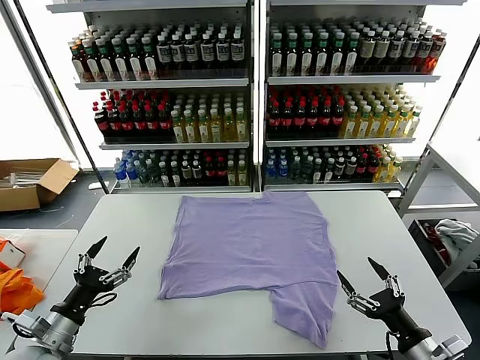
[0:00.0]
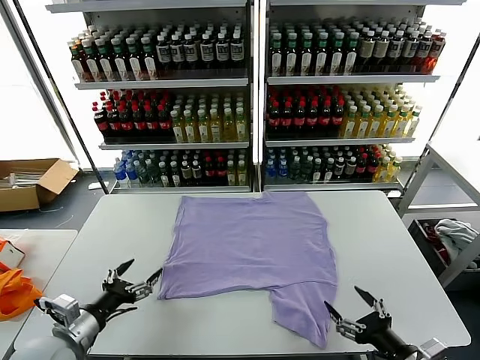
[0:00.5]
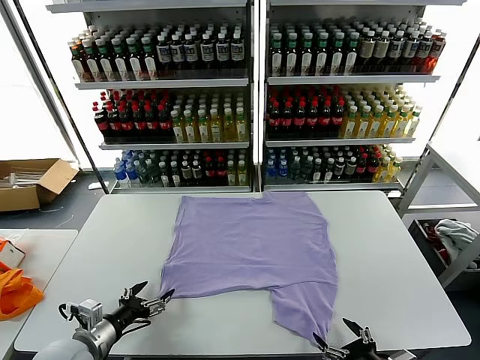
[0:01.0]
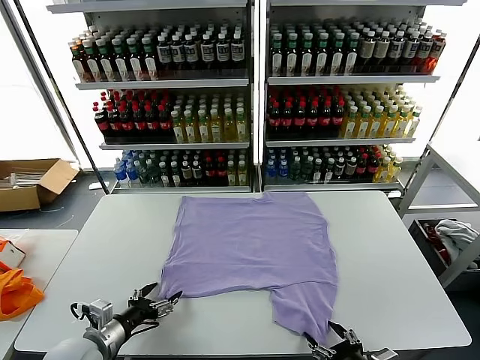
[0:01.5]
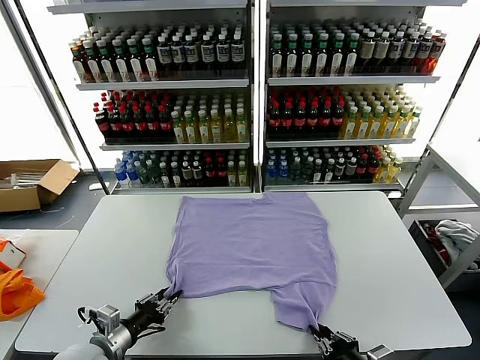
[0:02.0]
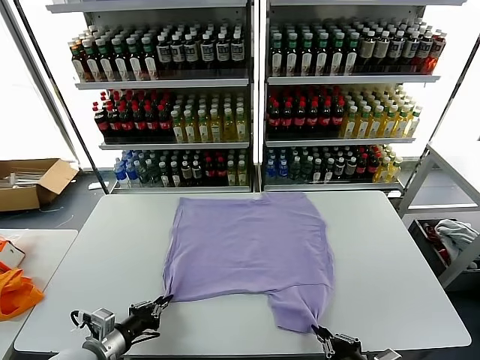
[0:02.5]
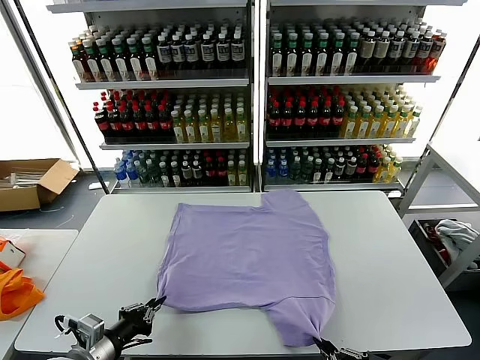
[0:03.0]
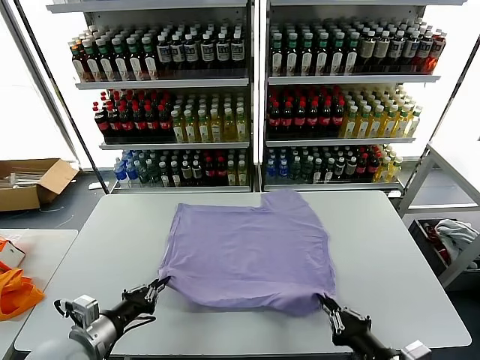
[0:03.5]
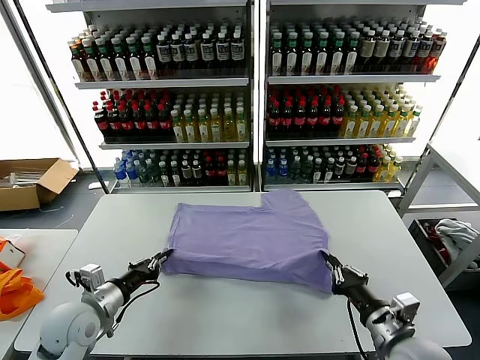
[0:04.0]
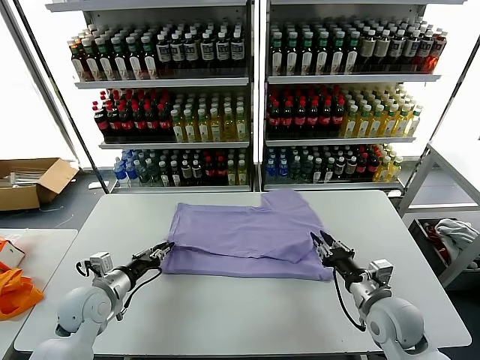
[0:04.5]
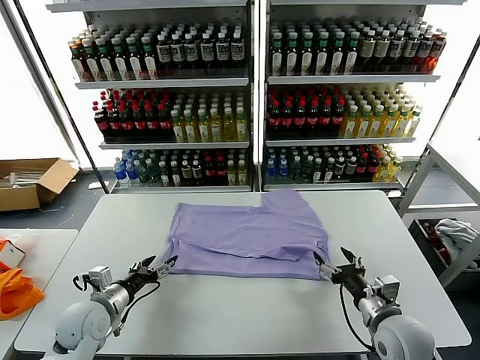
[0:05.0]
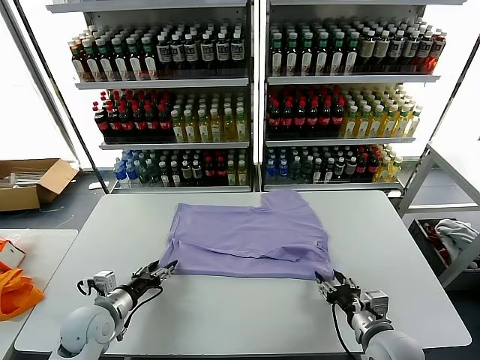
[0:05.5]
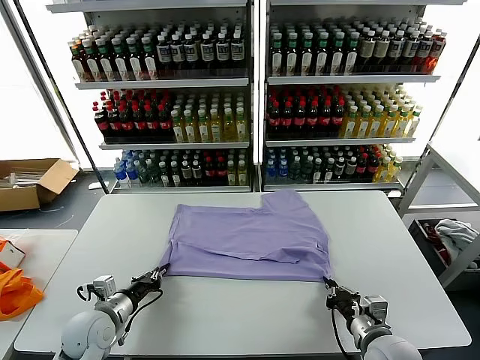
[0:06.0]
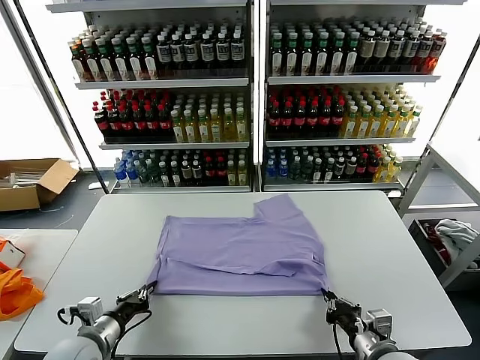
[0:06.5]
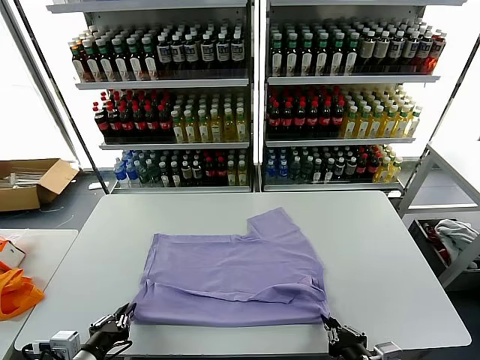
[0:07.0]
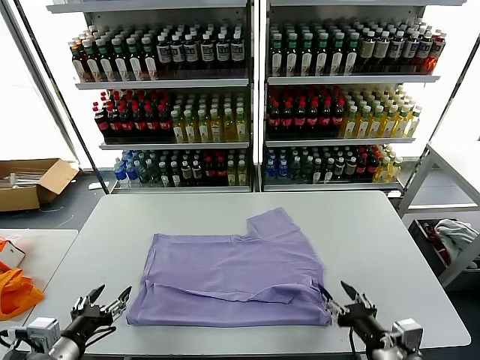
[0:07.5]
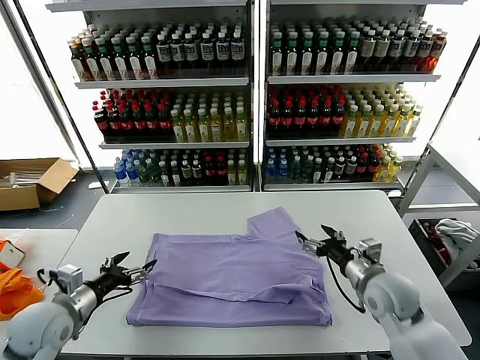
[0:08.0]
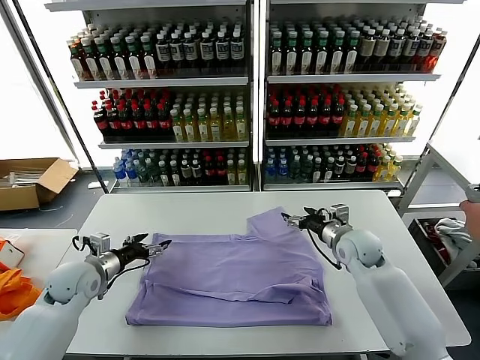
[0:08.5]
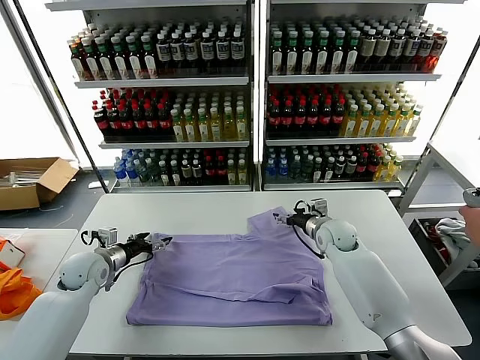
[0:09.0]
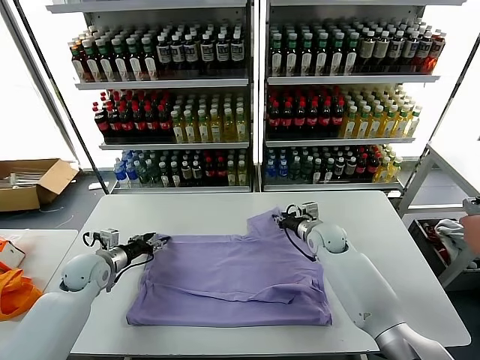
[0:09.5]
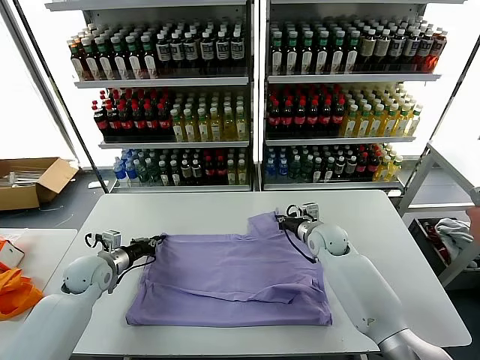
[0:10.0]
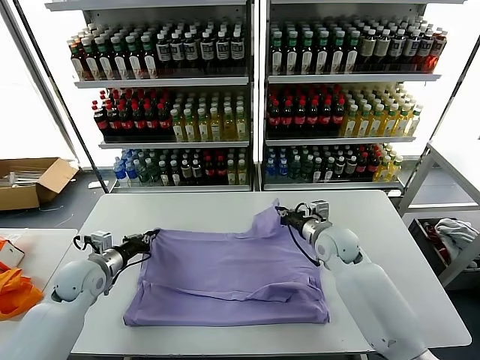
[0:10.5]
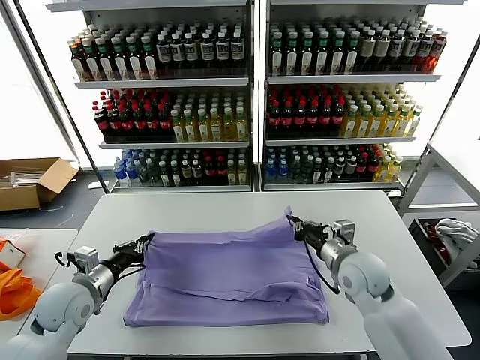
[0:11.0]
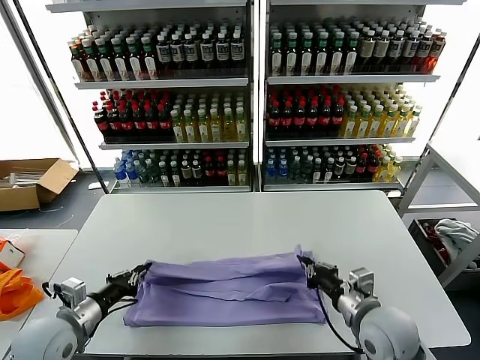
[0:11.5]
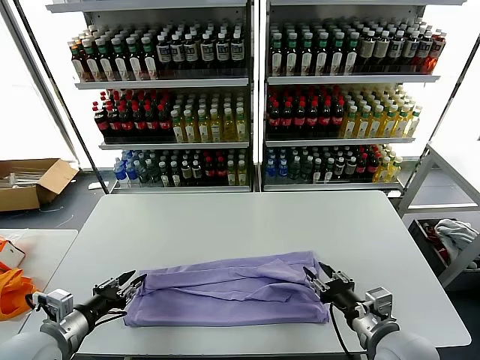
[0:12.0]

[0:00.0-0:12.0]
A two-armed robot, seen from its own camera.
Task of the whole recording: fold and organize the clothes.
Step, 0:00.0 to 0:02.5: use both grippers simultaneously to clamp the lower edge of the clothing fabric.
Step, 0:03.0 to 0:04.5: use both grippers to drag the lower edge of the fabric forward and fold it over the upper edge.
Step, 0:05.0 to 0:07.0: Drag the clothes downward with both gripper.
Step, 0:07.5 to 0:10.0: use both grippers simultaneously to clamp the upper edge of the clothing fabric.
Step, 0:10.5 to 0:12.0: use both grippers to drag the upper edge of the fabric backward and fold it over the lower edge.
0:02.0 to 0:04.0: The right gripper heads forward, covering some 10 cm; the left gripper moves forward and upward, some 10 cm.
0:04.0 to 0:06.0: The left gripper is displaced downward by some 5 cm, and opens and closes again, while the right gripper shifts by about 5 cm, and opens, then closes again.
0:06.0 to 0:08.0: The right gripper is displaced forward by about 15 cm, and opens its fingers. The left gripper is displaced upward by some 10 cm, reaches approximately 15 cm backward, then returns, and opens up.
0:08.0 to 0:10.0: The left gripper is displaced forward and downward by approximately 15 cm, and closes. Meanwhile the right gripper heads forward and to the left, covering roughly 15 cm, and closes up.
0:10.0 to 0:12.0: The two grippers go approximately 25 cm backward. The right gripper opens its fingers.

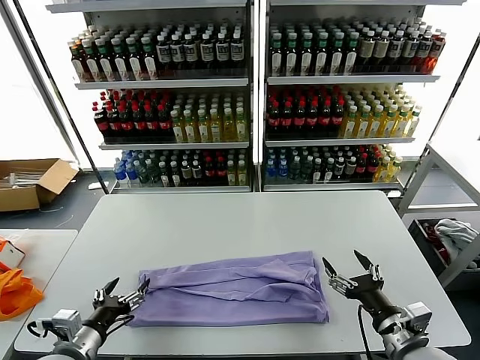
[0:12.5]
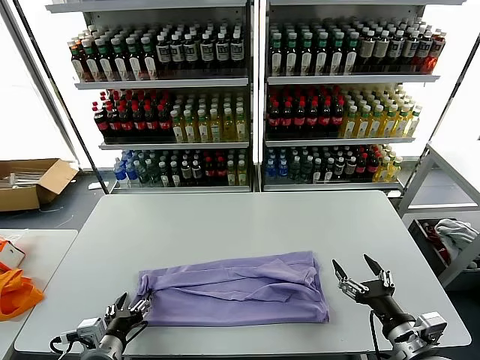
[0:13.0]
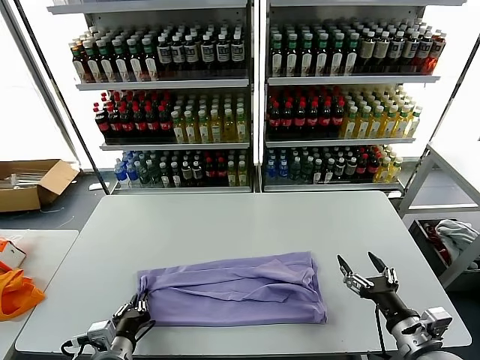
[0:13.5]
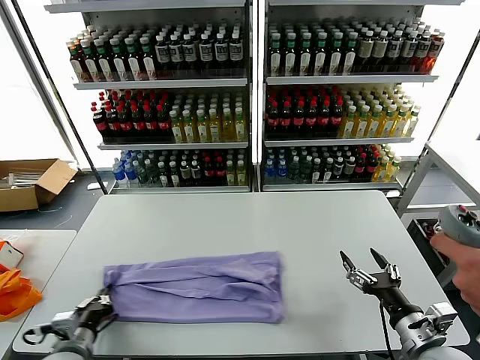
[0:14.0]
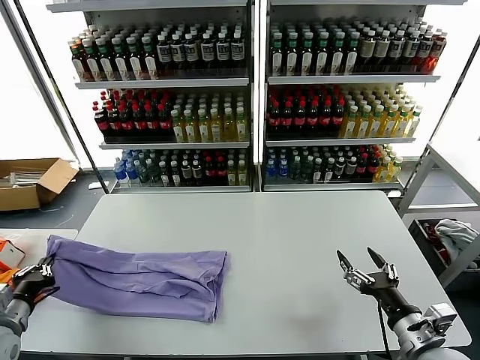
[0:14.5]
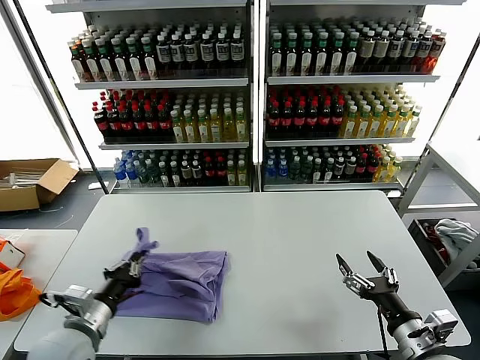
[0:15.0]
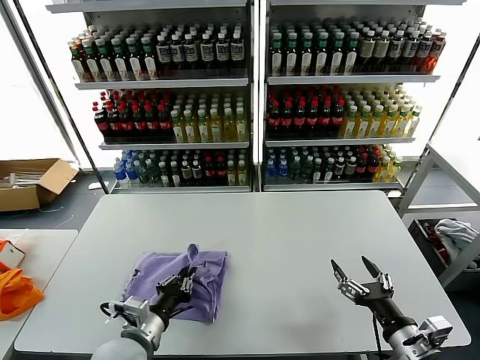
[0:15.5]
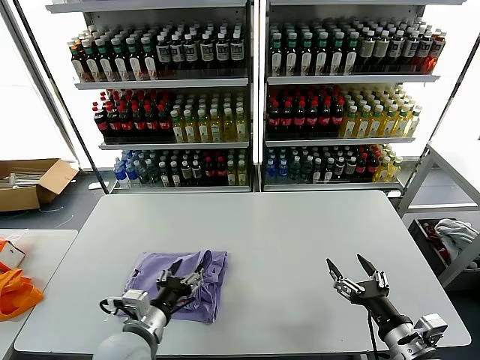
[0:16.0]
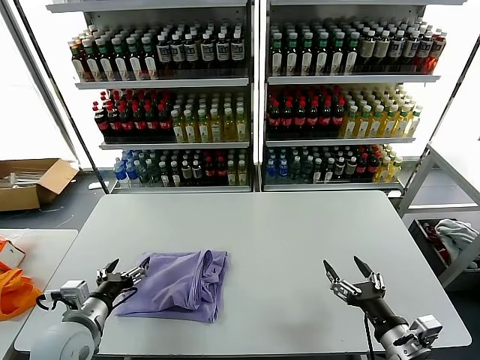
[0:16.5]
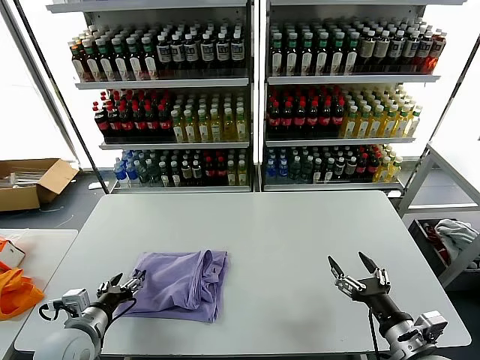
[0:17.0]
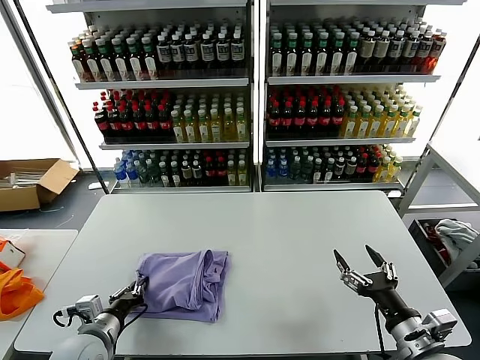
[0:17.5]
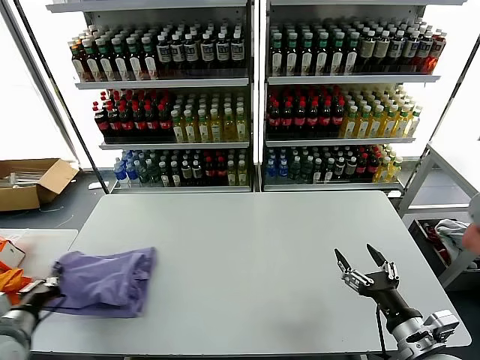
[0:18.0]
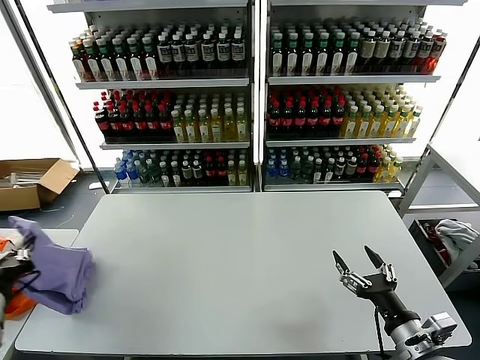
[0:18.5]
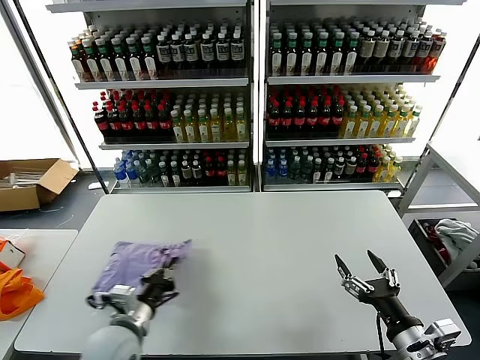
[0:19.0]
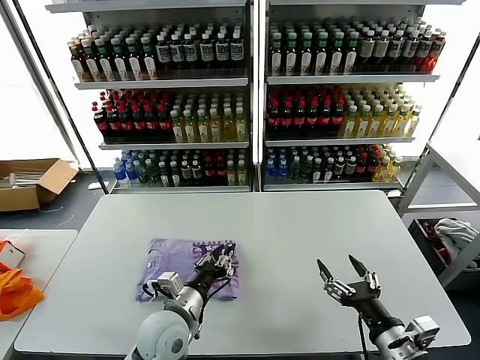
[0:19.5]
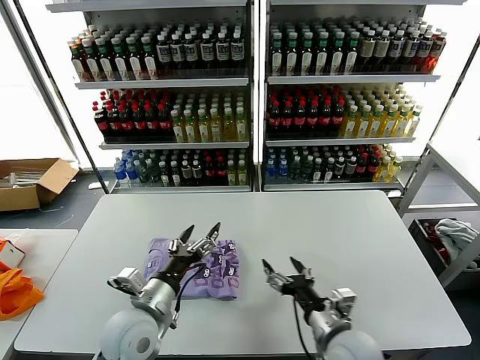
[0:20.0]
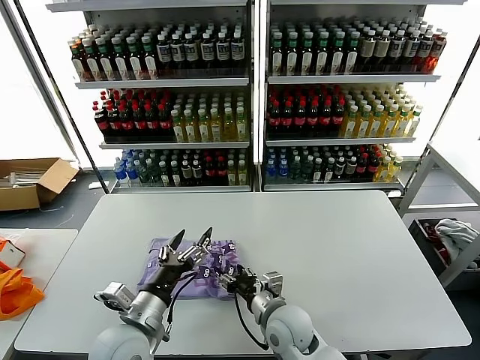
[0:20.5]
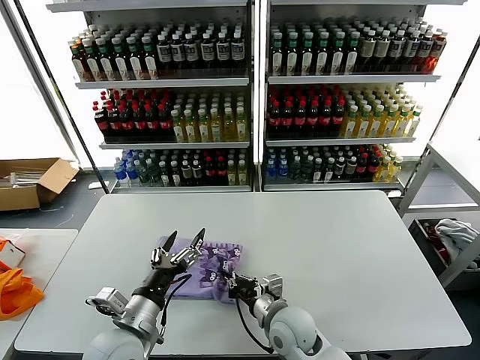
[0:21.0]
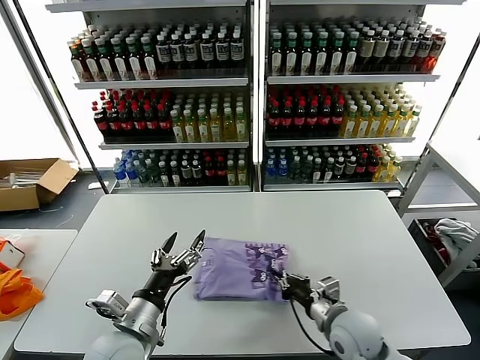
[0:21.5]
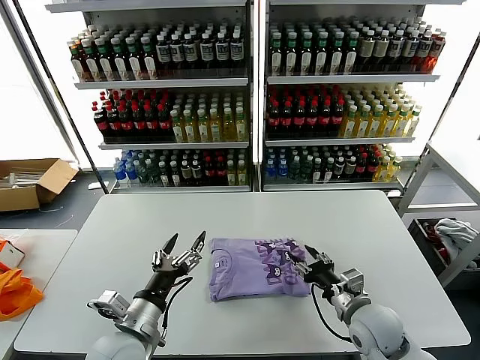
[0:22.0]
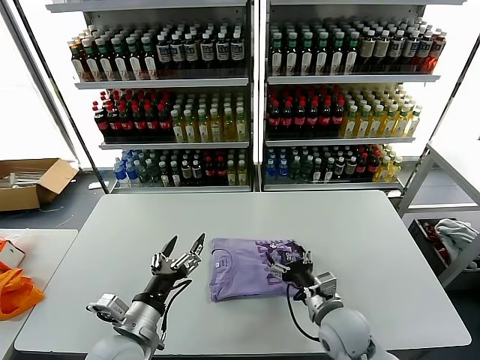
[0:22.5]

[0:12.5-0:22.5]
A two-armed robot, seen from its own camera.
Task of the whole recording: fold and organize the clothes.
Step, 0:12.5 to 0:13.5: use the left gripper to clamp the left edge of the fabric.
Step, 0:14.0 to 0:15.5: use the left gripper to drag the left edge of the fabric to the left and folds it over the right edge.
Step, 0:16.5 to 0:19.5: Flip the folded clothes over with left gripper.
0:12.5 to 0:14.5: The left gripper moves to the left, some 15 cm, and closes its fingers.
0:14.5 to 0:16.5: The left gripper goes approximately 15 cm to the right, and opens up.
0:16.5 to 0:18.5: The left gripper heads to the left and upward, covering about 15 cm, and closes.
0:18.5 to 0:20.5: The right gripper goes about 25 cm to the left and forward. The left gripper shifts some 25 cm to the right, and opens up.
0:20.5 to 0:22.5: The right gripper goes roughly 10 cm to the right, and closes and opens again.

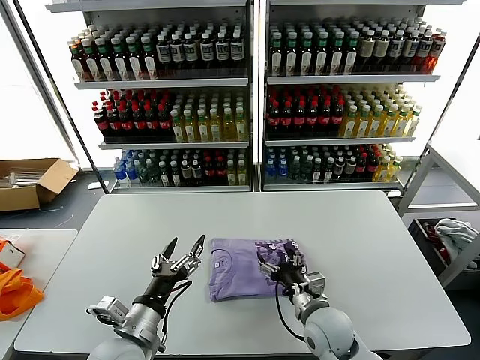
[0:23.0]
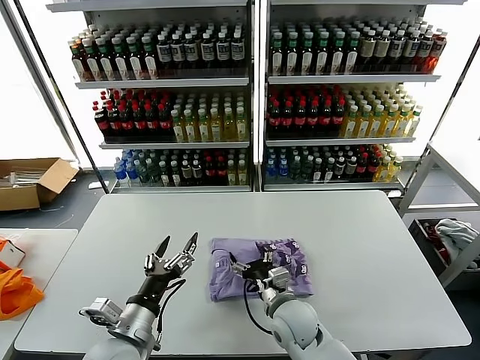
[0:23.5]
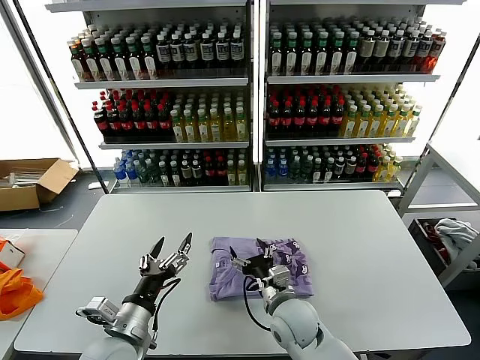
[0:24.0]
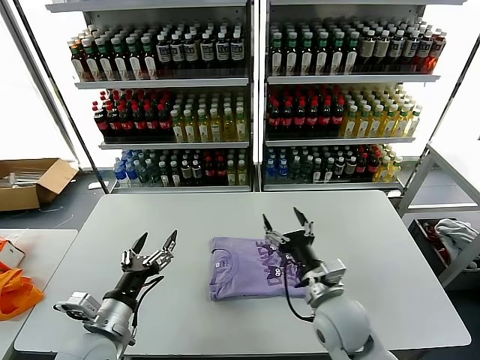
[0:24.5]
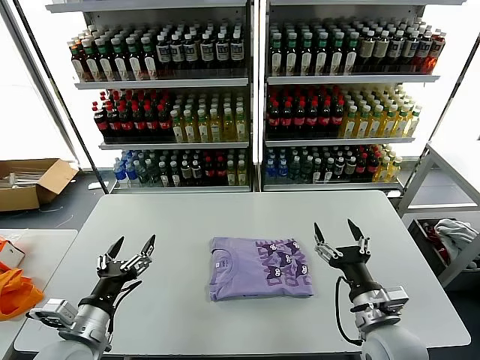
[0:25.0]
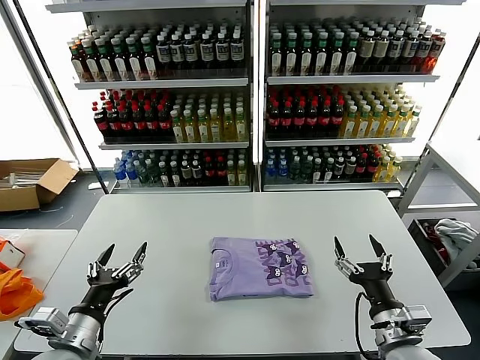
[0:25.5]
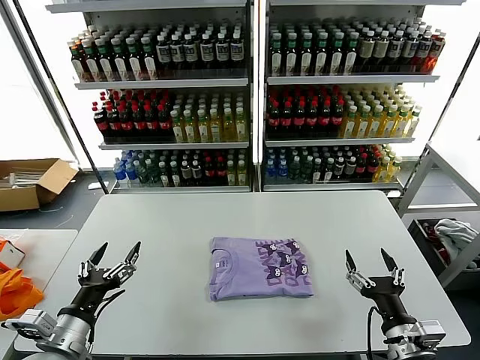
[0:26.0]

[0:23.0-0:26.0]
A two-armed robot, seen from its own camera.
Task of the whole recording: fold and organize the clothes.
0:23.0 to 0:24.5: The right gripper shifts about 5 cm upward.
0:24.5 to 0:26.0: The left gripper moves to the left, some 5 cm. Meanwhile the right gripper is displaced to the right and backward by approximately 20 cm.
